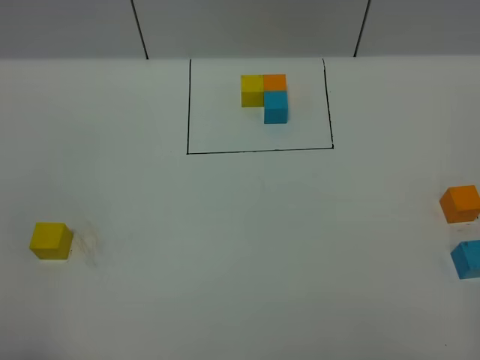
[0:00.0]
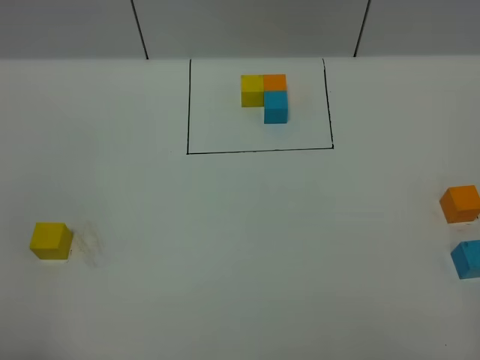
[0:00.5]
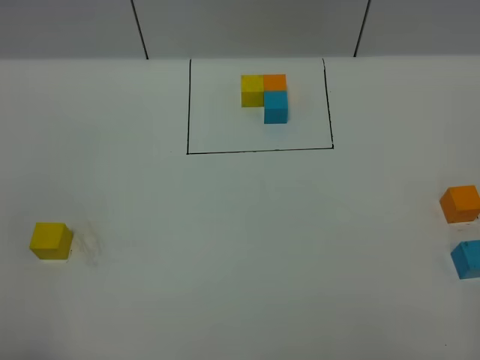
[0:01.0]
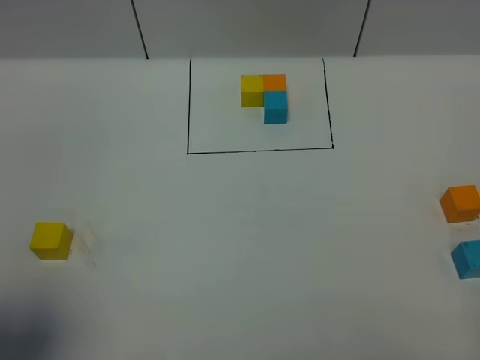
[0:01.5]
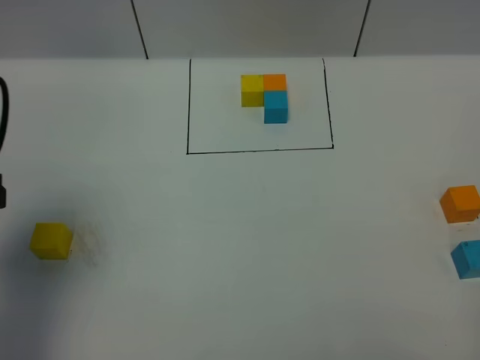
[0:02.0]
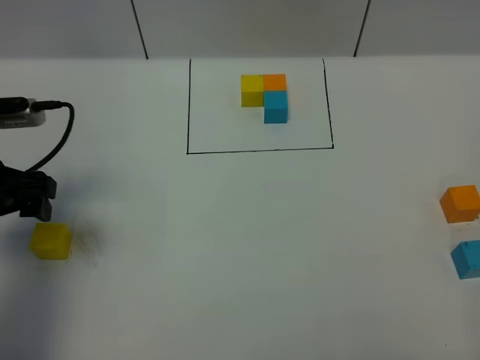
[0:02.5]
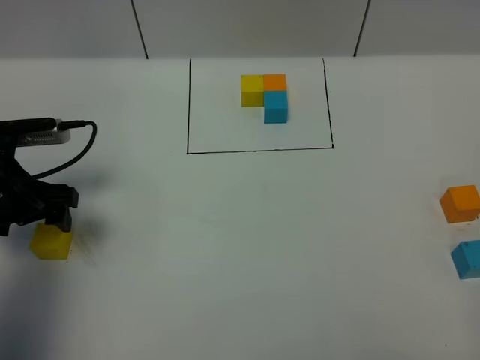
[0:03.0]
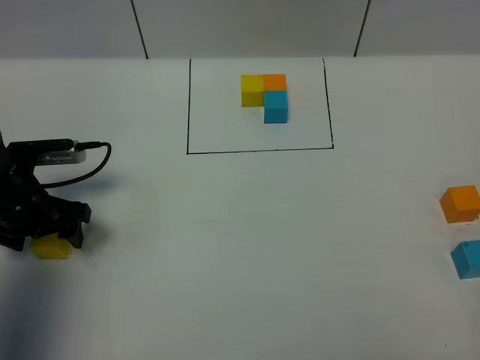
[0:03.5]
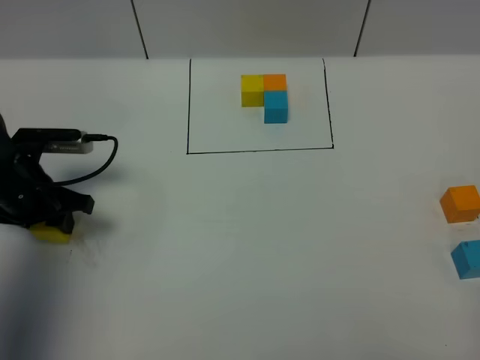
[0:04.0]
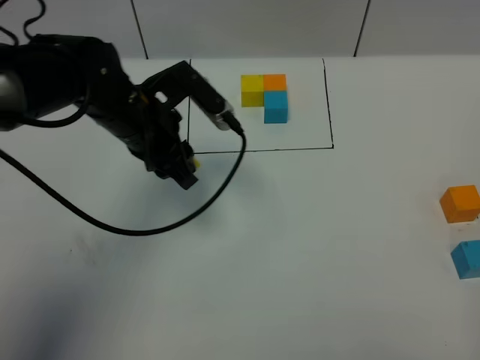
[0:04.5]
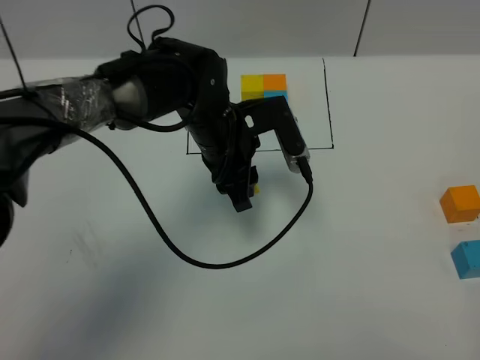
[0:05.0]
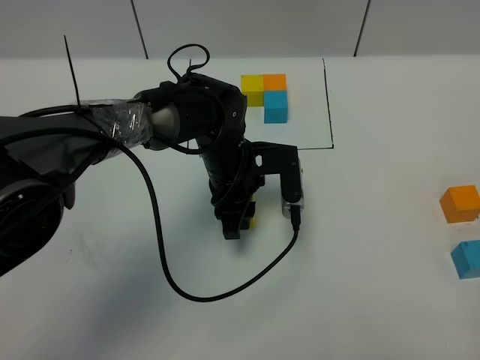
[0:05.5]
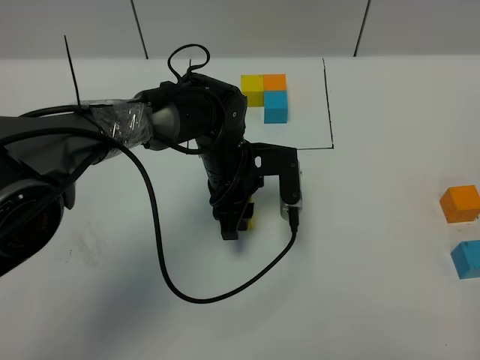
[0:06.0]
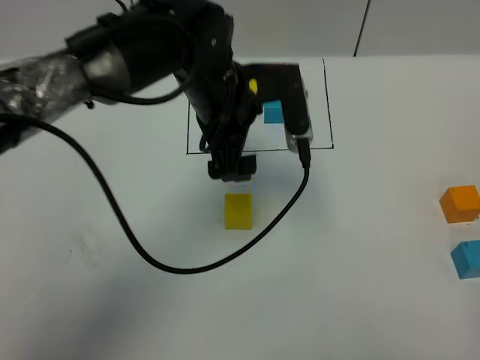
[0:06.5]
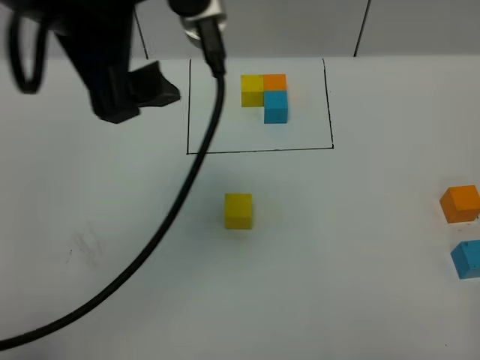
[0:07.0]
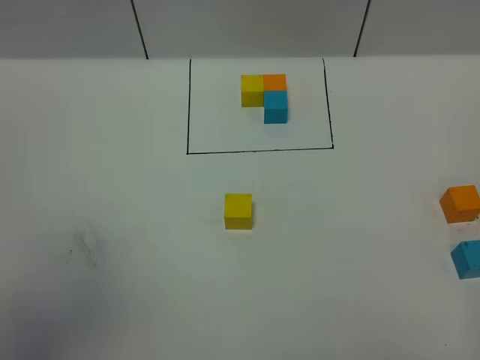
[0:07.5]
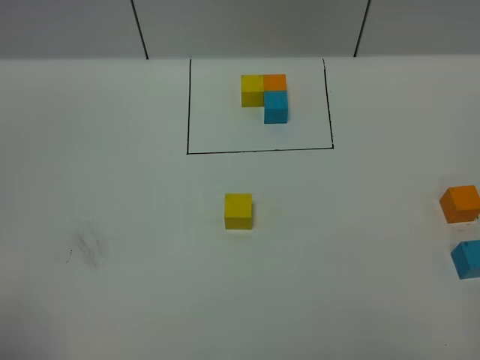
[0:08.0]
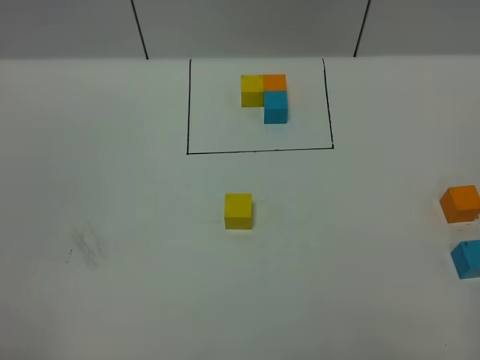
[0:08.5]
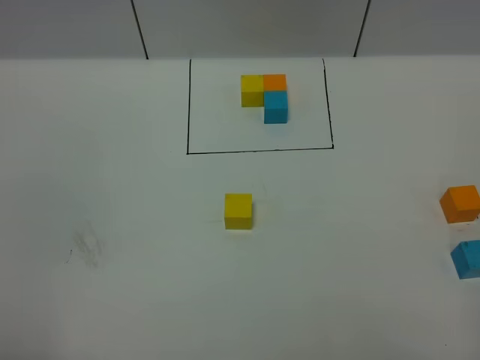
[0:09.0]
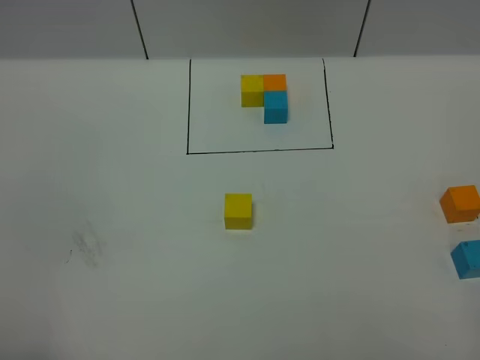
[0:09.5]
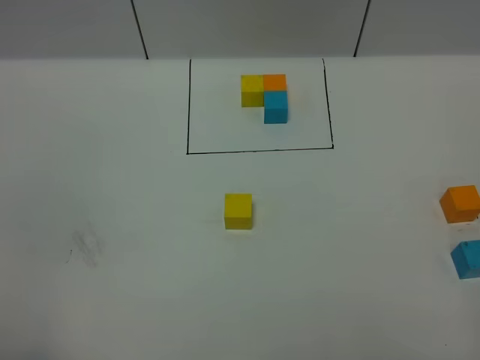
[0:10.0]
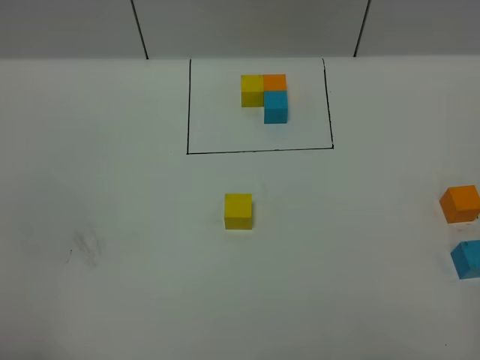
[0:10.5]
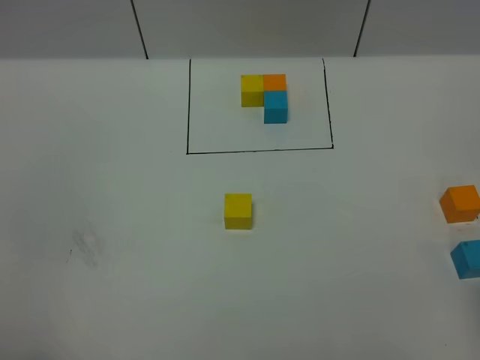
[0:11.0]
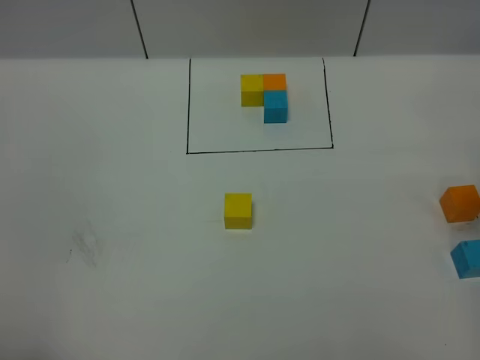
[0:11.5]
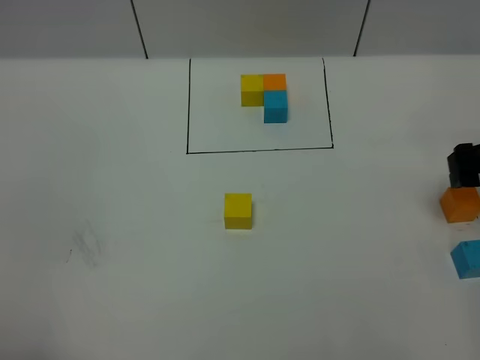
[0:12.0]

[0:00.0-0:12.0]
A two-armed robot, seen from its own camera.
Task of the whole recording: According to the building block template in front, assemble the scattered blocks together.
Step, 0:02.0 to 0:06.0: Put the yellow cube in the center of the table.
0:00.0 to 0:02.0: The left gripper travels forward by roughly 20 cm.
0:02.0 to 0:04.0: The left gripper is displaced downward and forward by approximately 20 cm, and closes.
0:04.0 to 0:06.0: The left gripper moves to the right, roughly 25 cm.
0:06.0 to 0:08.0: The left gripper heads backward, to the left and upward, covering approximately 60 cm, and opens its fingers.
0:10.0 to 0:12.0: The right gripper goes about 30 cm forward, and opens.

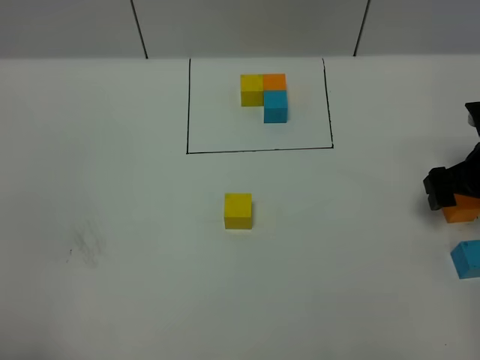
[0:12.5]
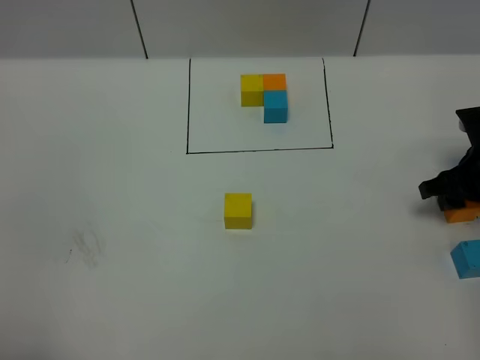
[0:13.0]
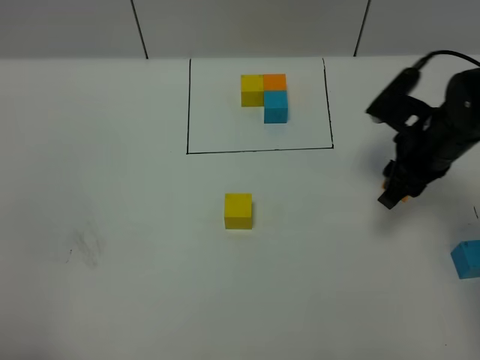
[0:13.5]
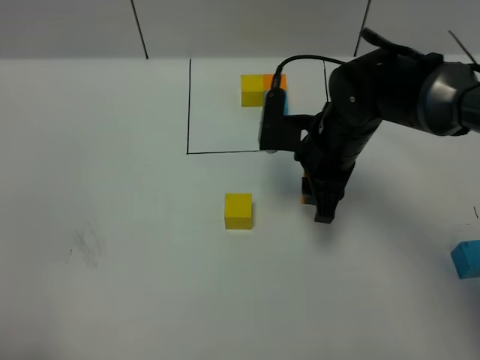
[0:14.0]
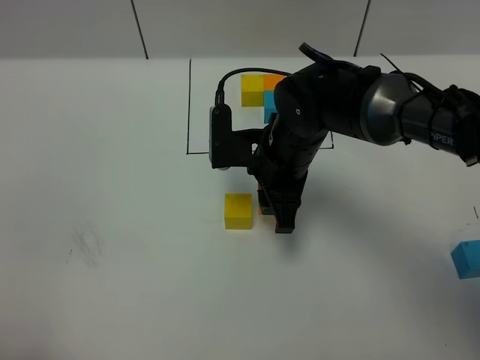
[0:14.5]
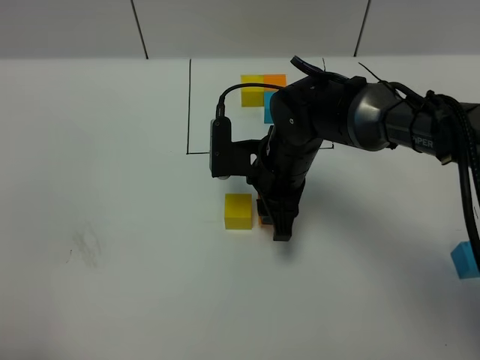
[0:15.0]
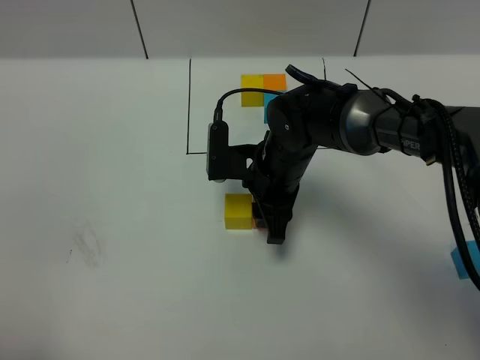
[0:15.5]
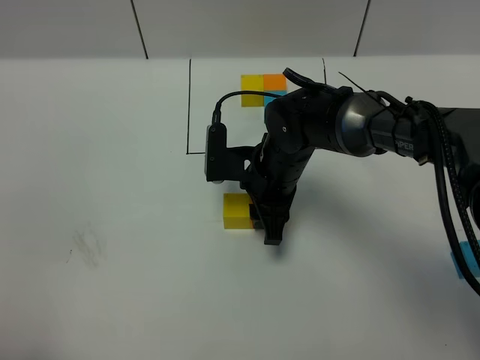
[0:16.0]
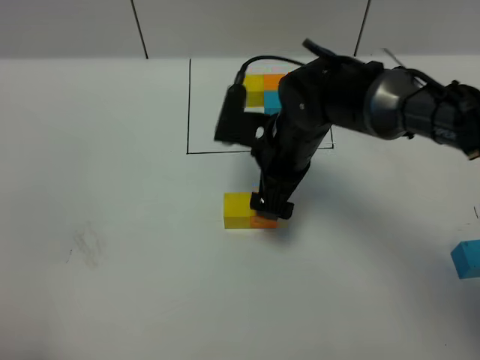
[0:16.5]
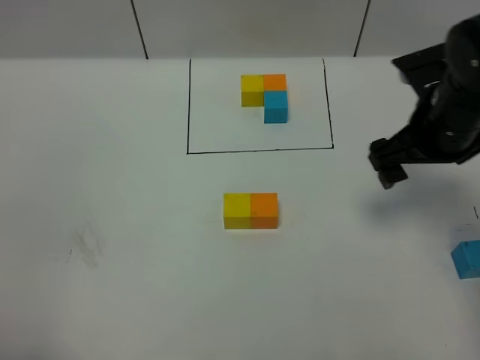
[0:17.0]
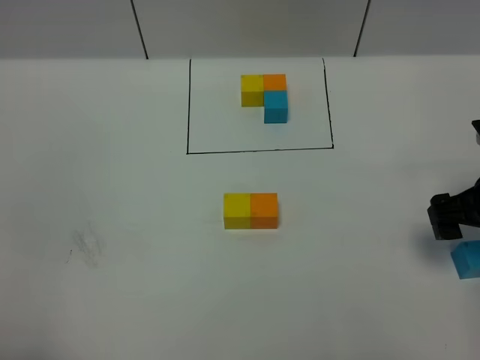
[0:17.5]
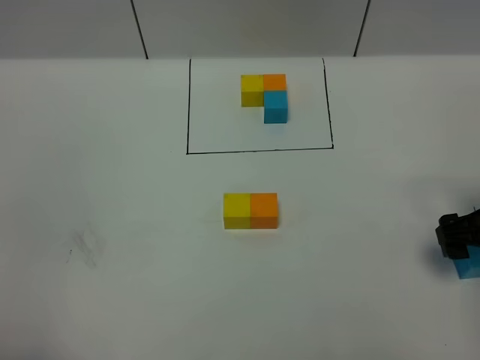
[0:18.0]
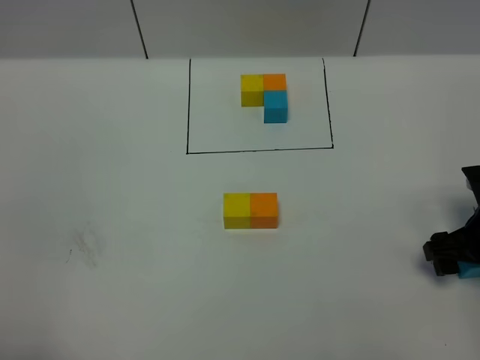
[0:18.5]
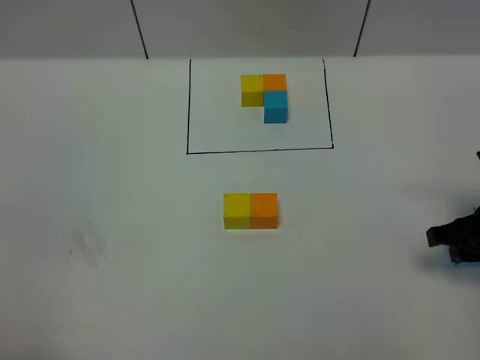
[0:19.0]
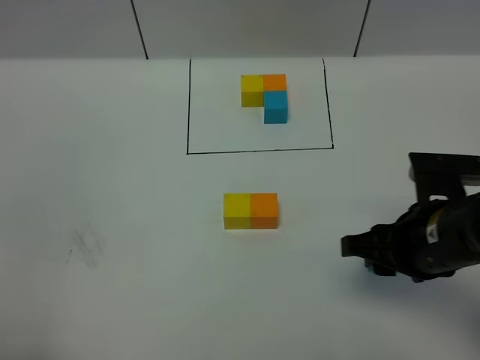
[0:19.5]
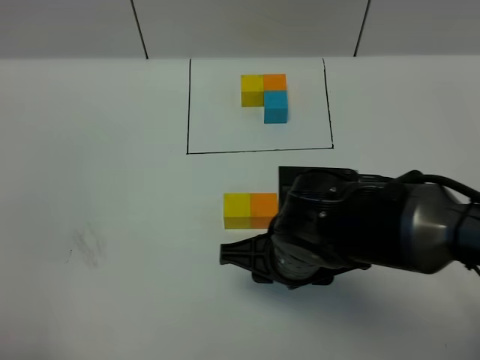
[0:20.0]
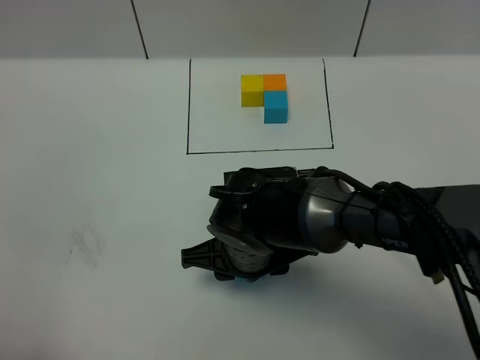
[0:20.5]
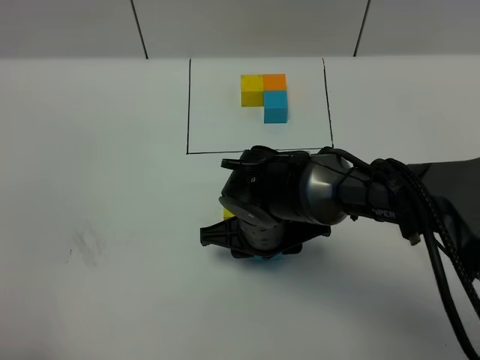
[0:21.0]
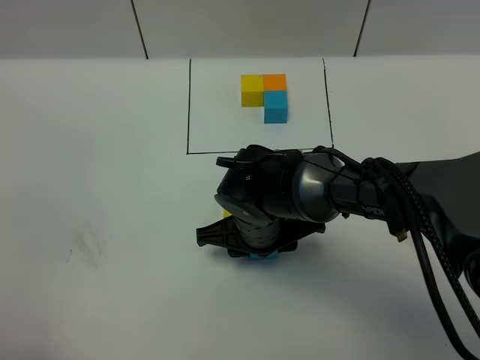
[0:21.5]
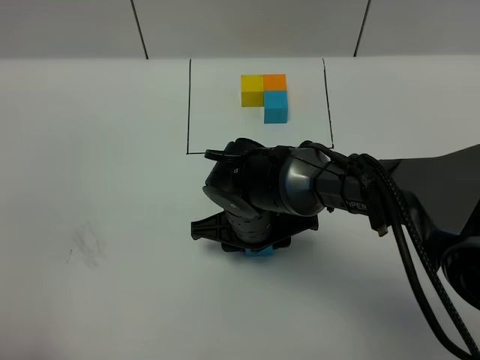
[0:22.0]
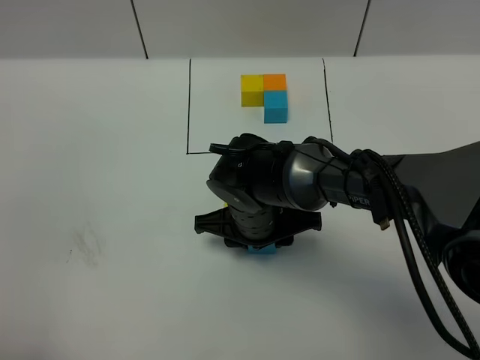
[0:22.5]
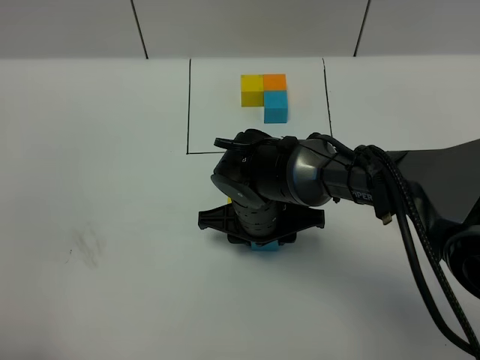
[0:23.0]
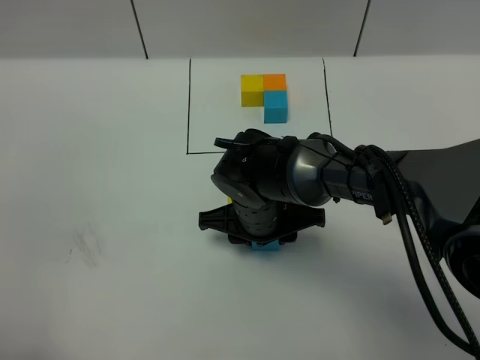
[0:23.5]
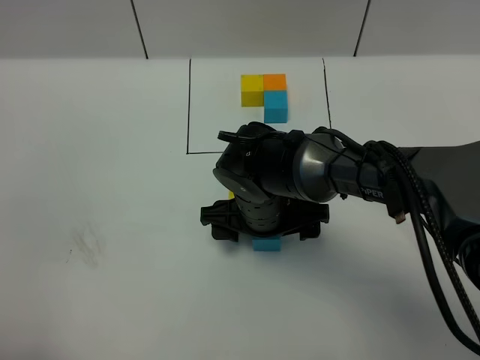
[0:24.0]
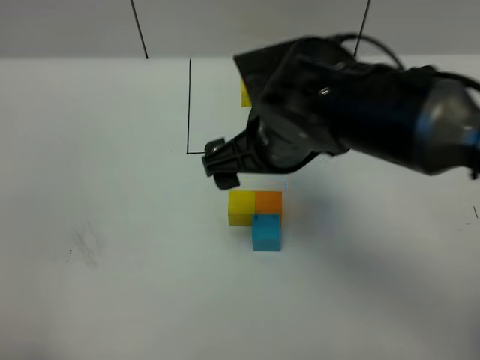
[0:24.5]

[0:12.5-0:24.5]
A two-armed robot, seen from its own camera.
Task of the whole recording: According to the building block template in front, assemble the scattered blocks together.
Step, 0:12.5 to 0:16.0: Put the orange cube on the right of the yellow cube.
Step, 0:16.5 to 0:23.5: Put the blue cube in the front of the orange cube.
0:12.5 to 0:14.5: The right gripper travels to the left by about 25 cm, and closes.
0:14.5 to 0:16.5: The right gripper opens.
0:16.5 to 0:18.5: The right gripper moves to the right and backward, about 25 cm.
0:18.5 to 0:20.5: The right gripper moves to the left, some 30 cm, and closes its fingers.
0:20.5 to 0:22.5: The right gripper heads forward, covering about 5 cm.
0:22.5 to 0:24.5: The right gripper goes some 20 cm upward, and opens up.

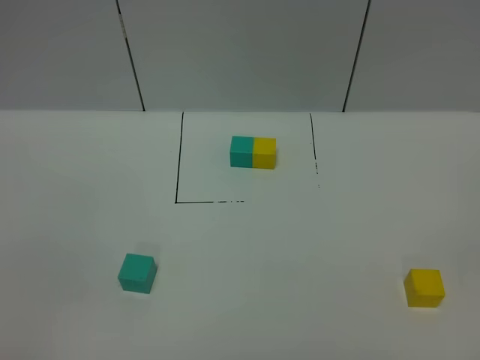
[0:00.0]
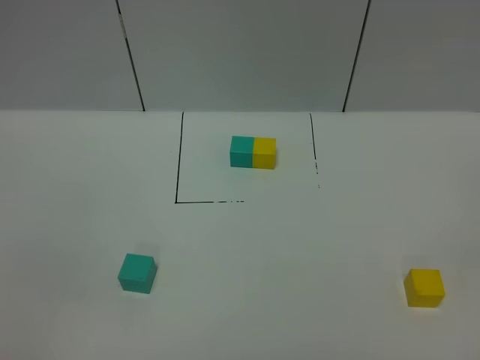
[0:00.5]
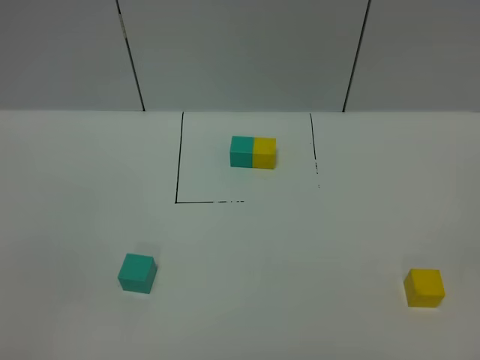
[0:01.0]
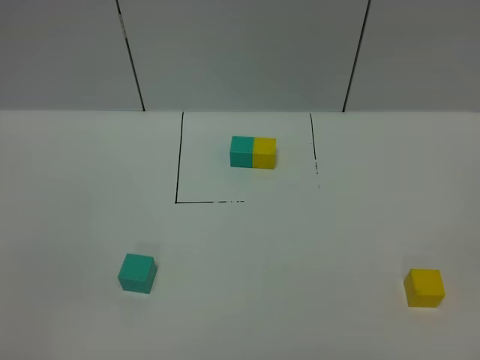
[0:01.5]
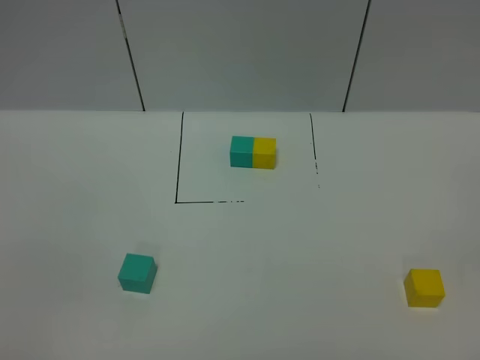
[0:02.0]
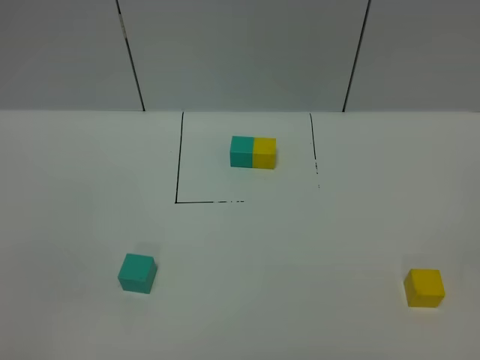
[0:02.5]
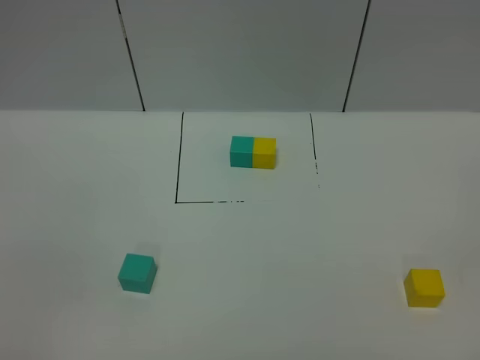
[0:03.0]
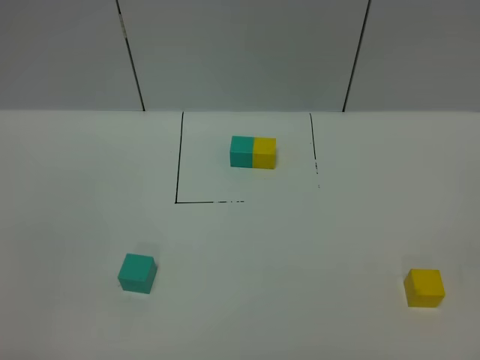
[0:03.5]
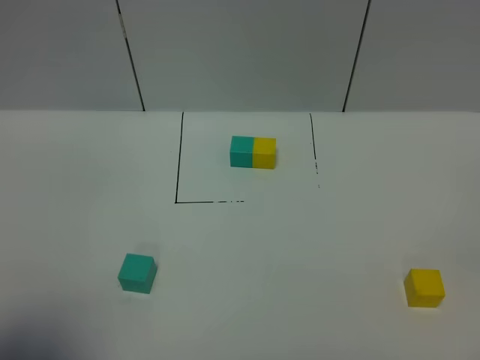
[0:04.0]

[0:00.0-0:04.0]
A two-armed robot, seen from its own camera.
Task of the whole recording: According to the building block template in front, assemble the scattered blocks together.
0:00.0 to 0:02.0: The two grippers keep their place.
0:02.0 to 0:04.0: The left gripper goes about 15 cm forward and upward.
